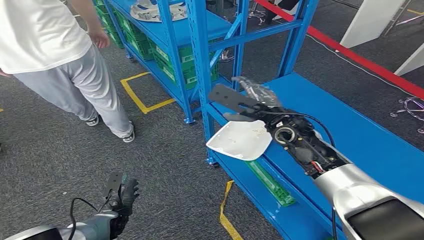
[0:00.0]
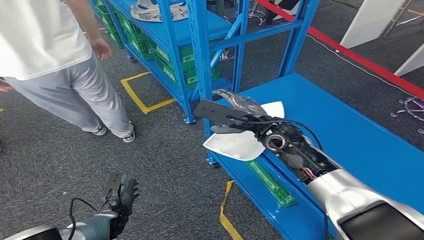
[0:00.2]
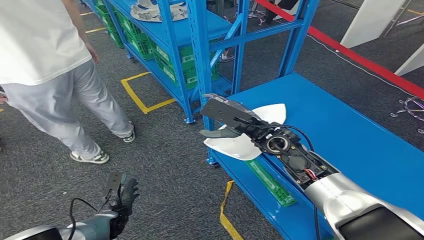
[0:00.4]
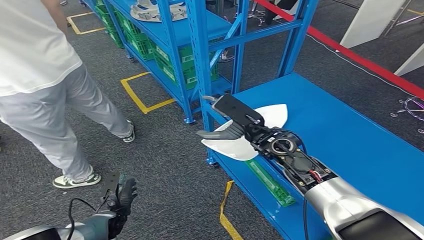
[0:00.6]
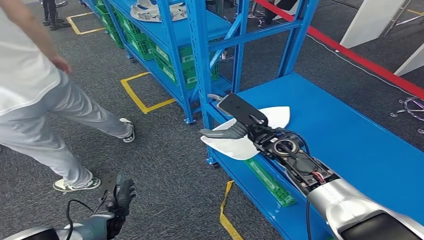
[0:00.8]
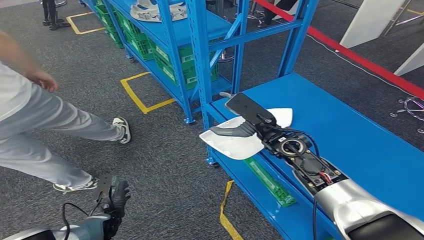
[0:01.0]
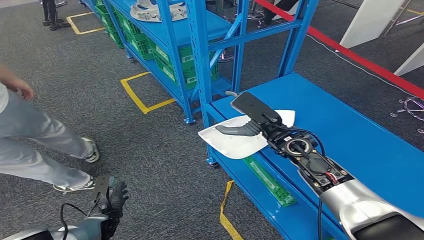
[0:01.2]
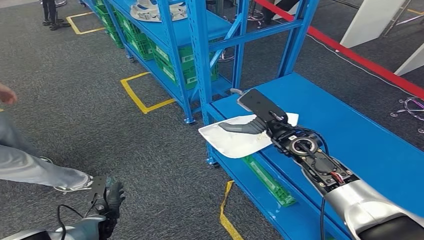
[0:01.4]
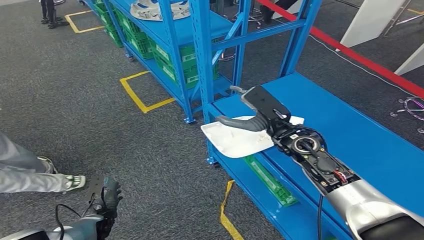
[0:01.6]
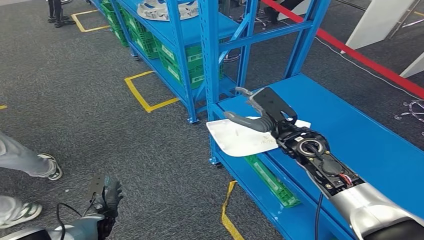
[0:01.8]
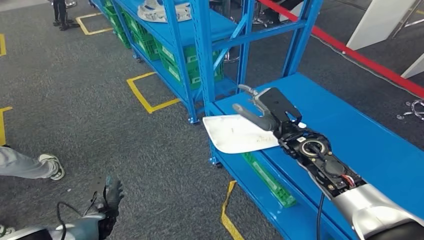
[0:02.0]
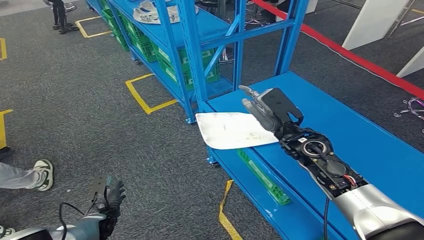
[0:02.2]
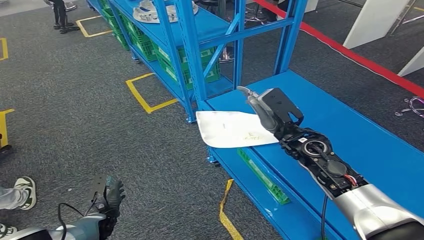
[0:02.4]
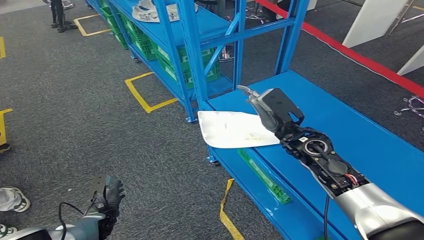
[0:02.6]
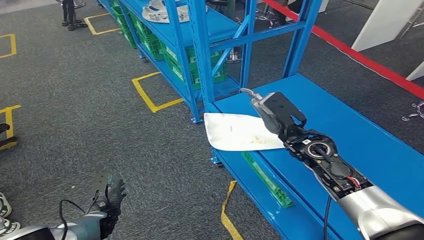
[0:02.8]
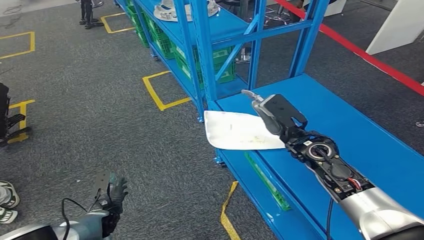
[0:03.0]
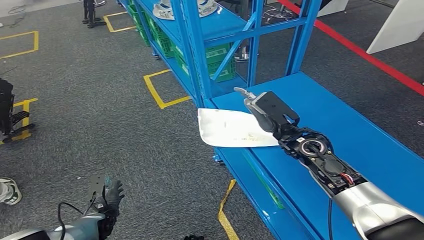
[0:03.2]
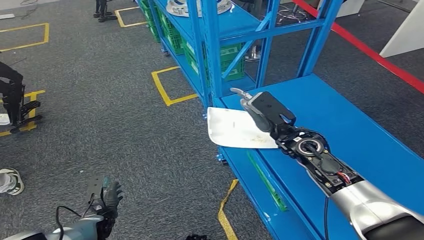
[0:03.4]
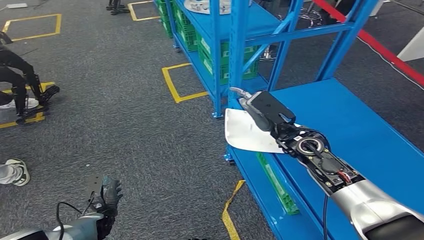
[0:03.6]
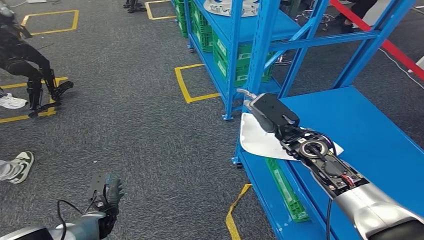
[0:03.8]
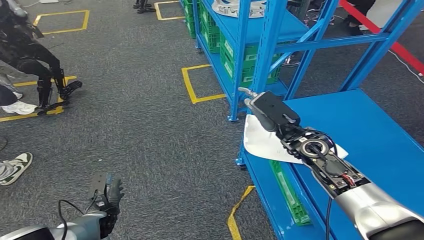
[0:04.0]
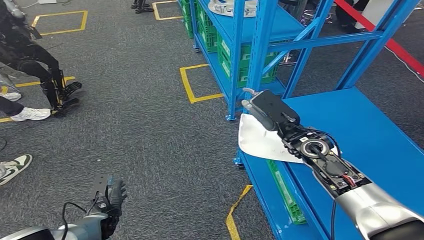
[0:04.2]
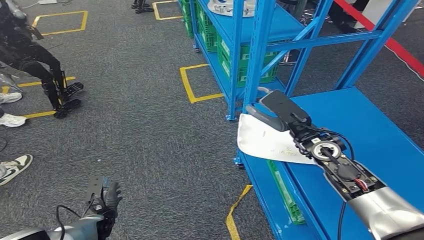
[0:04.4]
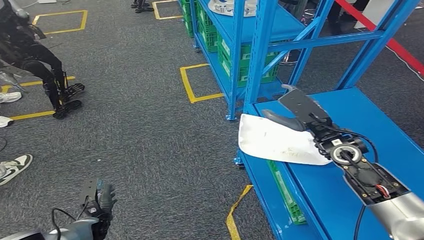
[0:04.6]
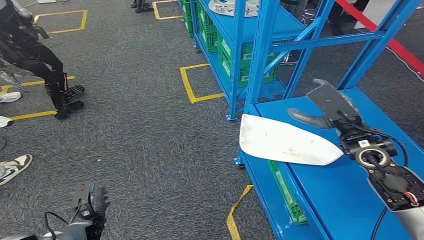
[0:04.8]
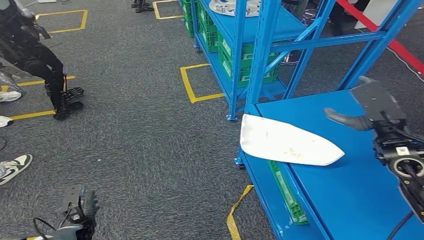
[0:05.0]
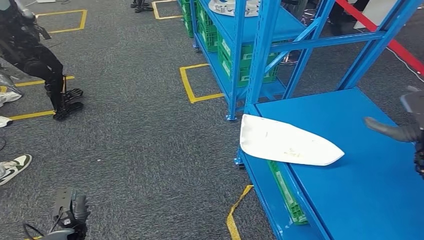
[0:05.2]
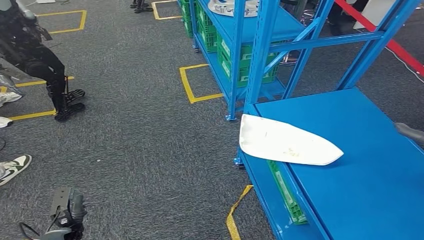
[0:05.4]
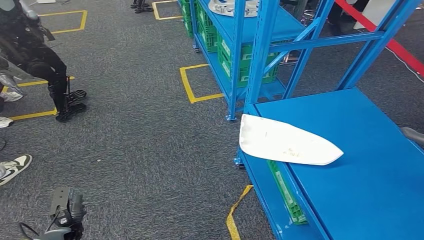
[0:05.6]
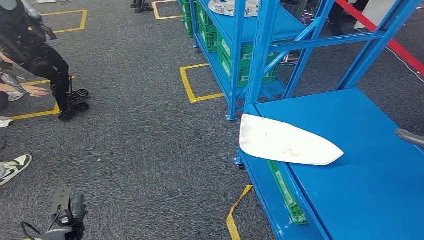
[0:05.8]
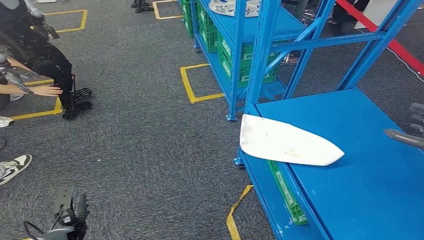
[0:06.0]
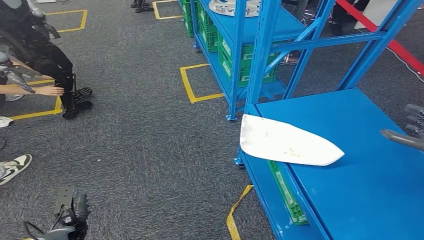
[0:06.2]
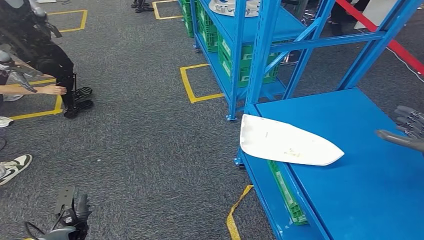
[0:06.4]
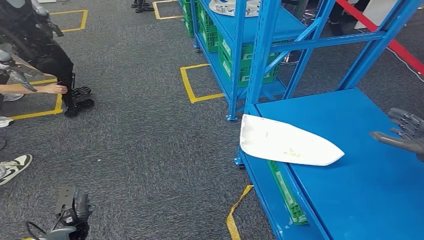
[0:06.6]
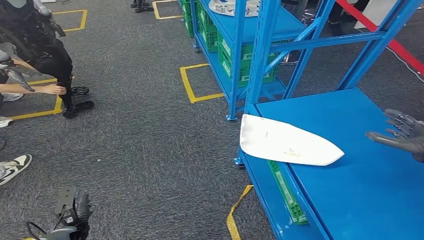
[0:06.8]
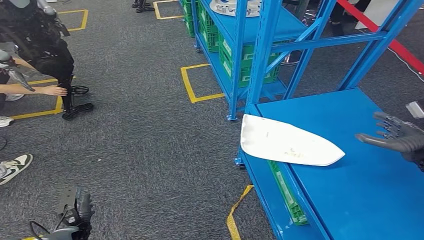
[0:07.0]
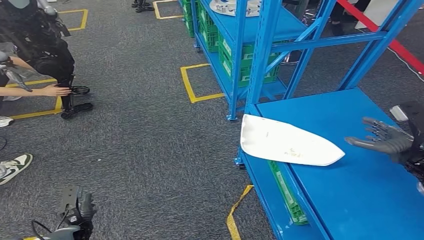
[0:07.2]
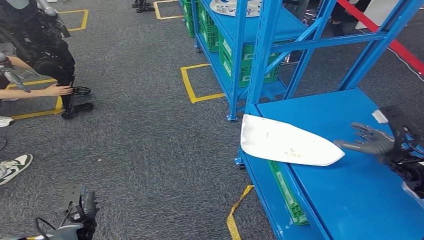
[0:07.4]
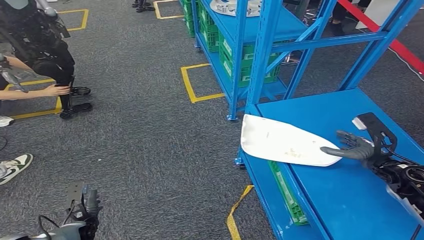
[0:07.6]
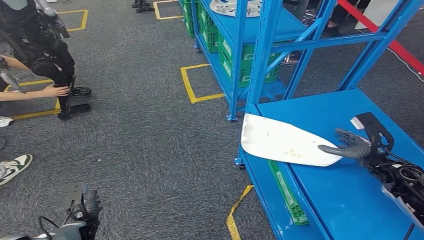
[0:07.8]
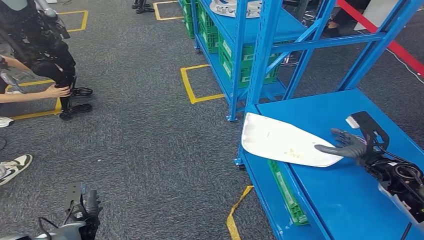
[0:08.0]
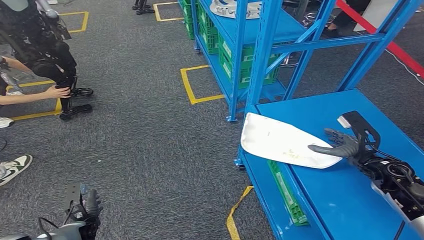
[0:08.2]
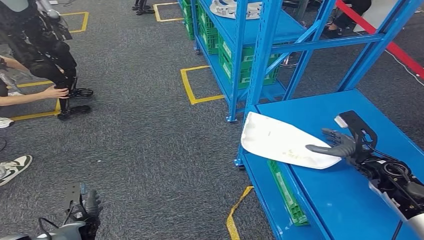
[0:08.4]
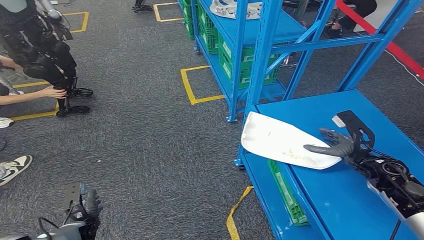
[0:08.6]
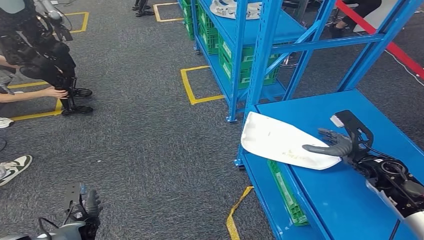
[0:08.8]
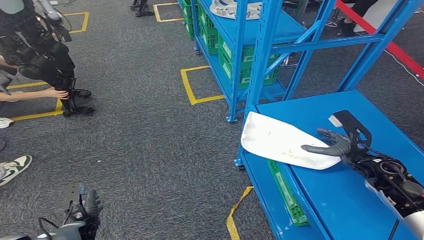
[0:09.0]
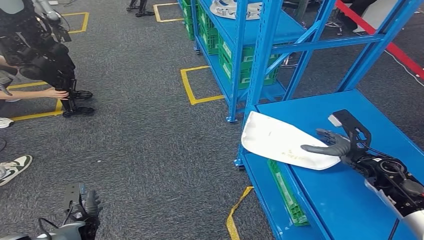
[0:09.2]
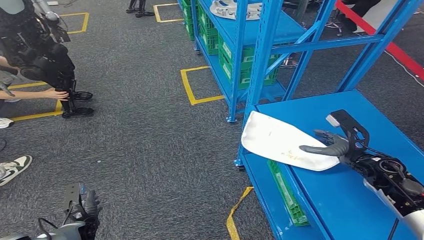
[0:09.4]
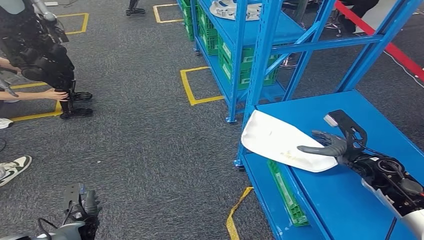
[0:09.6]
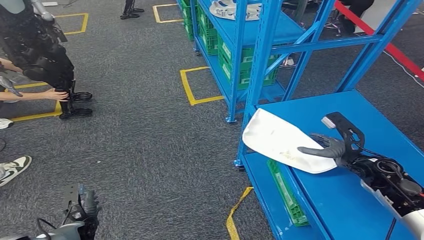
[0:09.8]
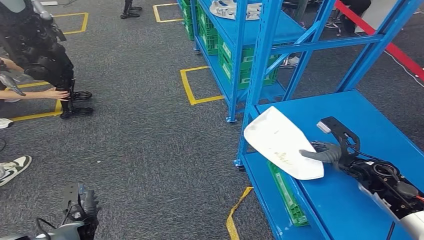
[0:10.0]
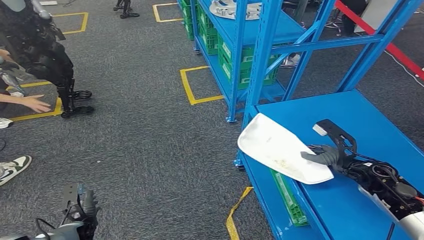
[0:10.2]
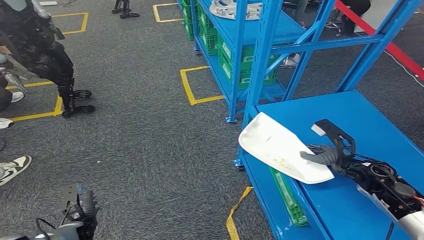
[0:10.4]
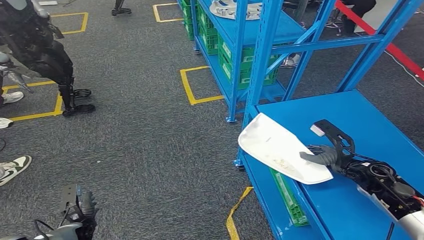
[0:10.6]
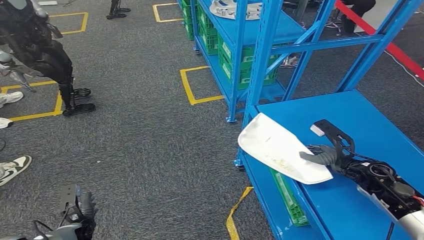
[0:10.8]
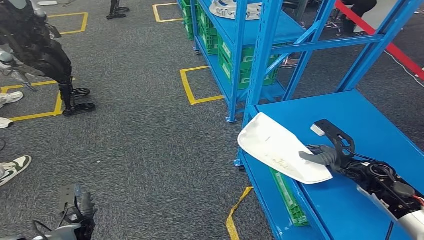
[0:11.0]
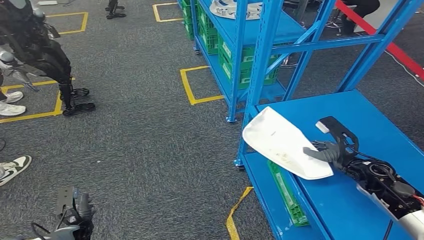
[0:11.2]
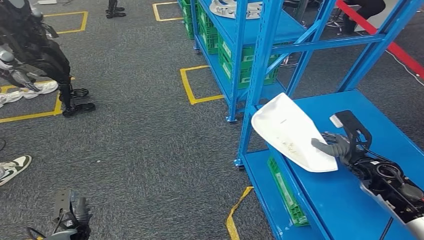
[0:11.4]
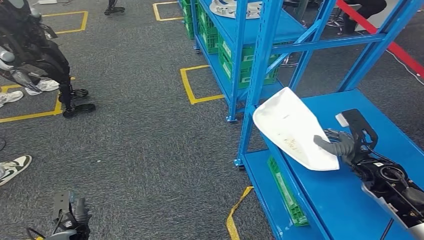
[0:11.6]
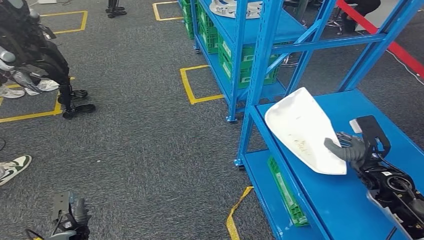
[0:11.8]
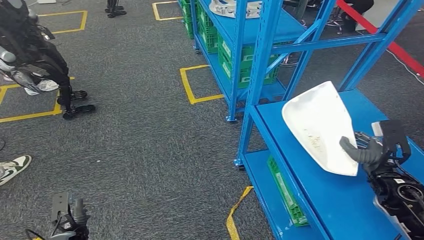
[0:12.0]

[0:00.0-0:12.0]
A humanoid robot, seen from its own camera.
0:04.4 to 0:06.0: The left hand travels to the left and backward by some 10 cm; the right hand shifts approximately 25 cm to the right.
0:06.0 to 0:07.6: The right hand is displaced downward and to the left by roughly 10 cm.
0:07.6 to 0:10.4: There are only small adjustments of the hands.
0:10.4 to 0:12.0: The right hand changes place by some 5 cm.

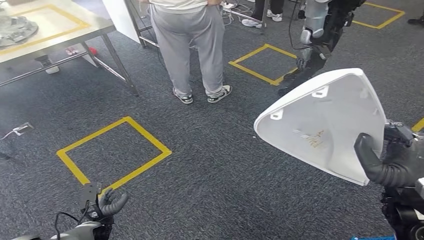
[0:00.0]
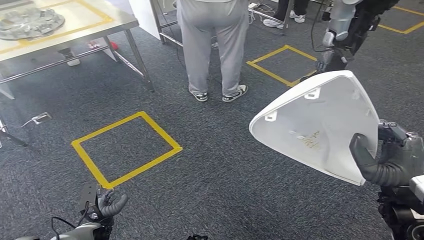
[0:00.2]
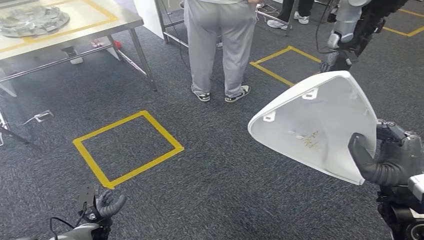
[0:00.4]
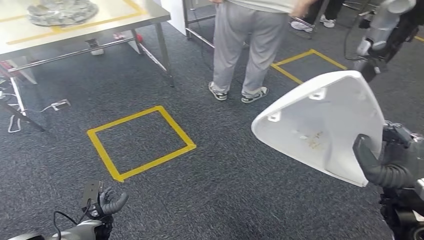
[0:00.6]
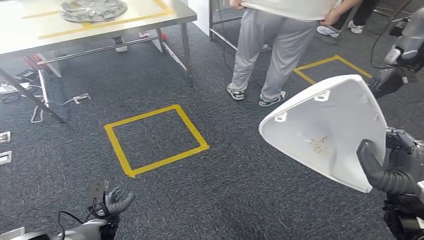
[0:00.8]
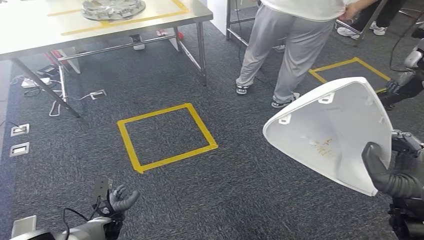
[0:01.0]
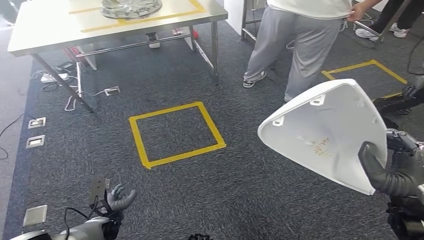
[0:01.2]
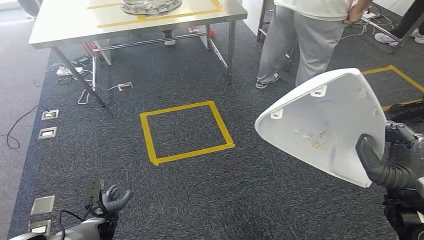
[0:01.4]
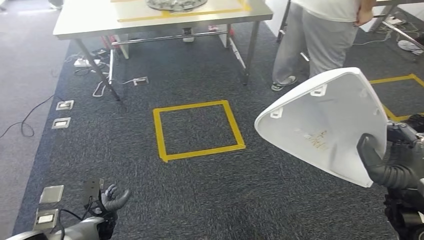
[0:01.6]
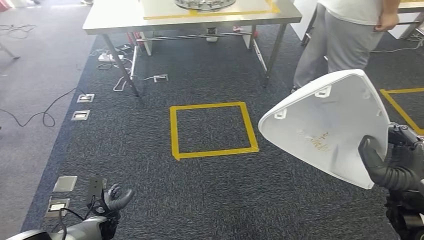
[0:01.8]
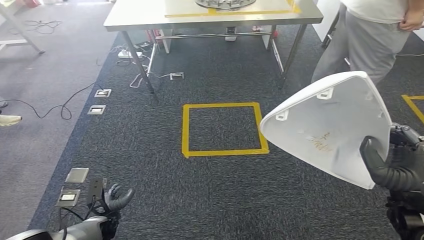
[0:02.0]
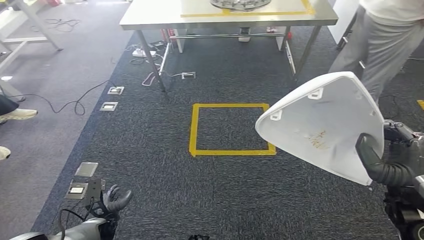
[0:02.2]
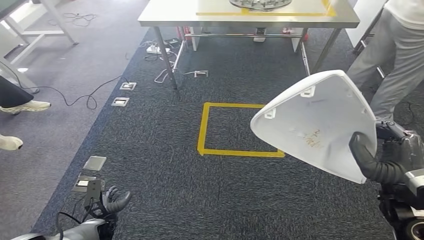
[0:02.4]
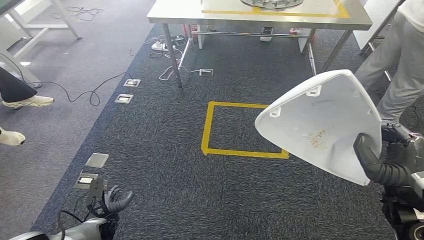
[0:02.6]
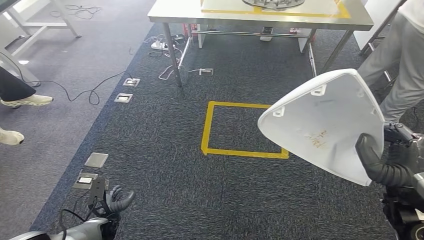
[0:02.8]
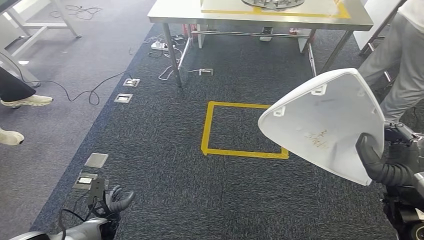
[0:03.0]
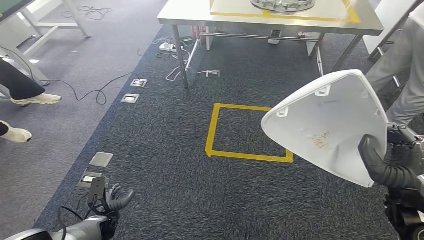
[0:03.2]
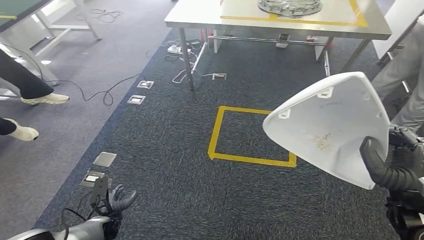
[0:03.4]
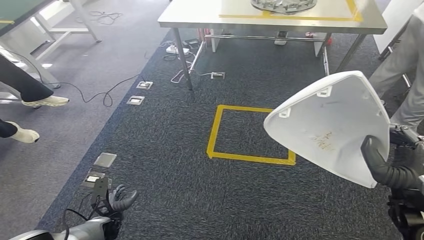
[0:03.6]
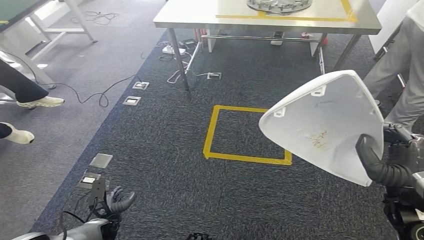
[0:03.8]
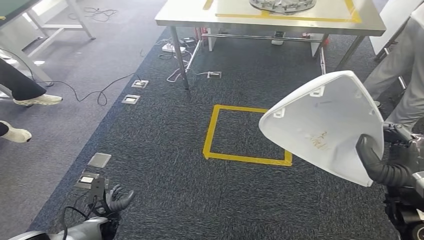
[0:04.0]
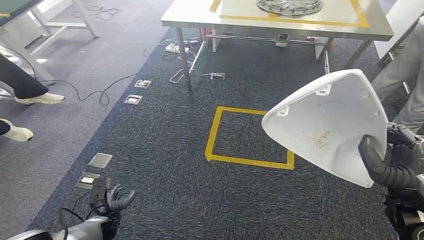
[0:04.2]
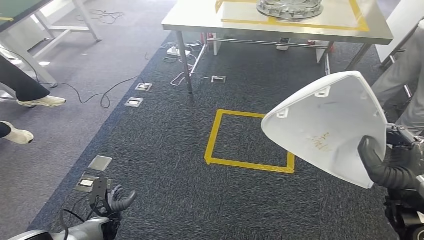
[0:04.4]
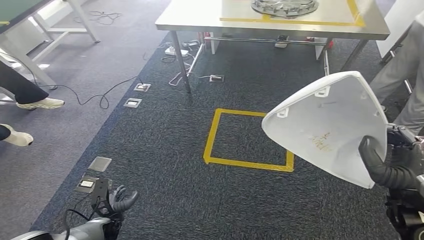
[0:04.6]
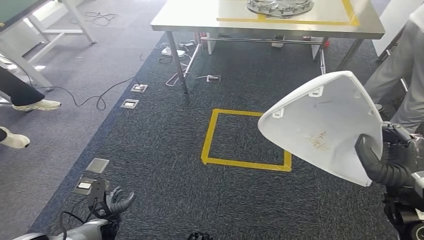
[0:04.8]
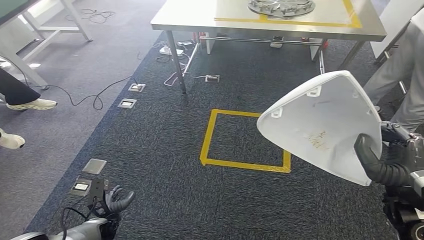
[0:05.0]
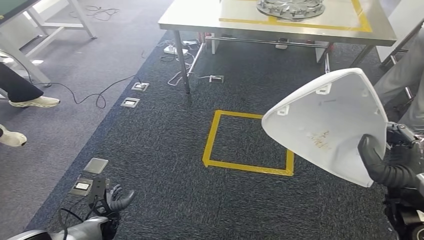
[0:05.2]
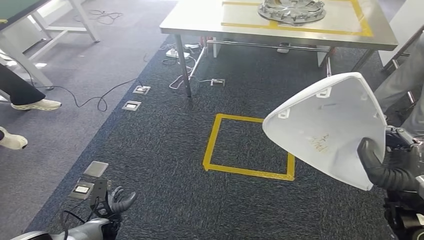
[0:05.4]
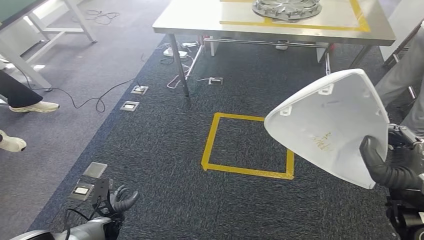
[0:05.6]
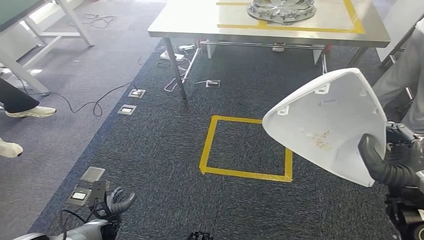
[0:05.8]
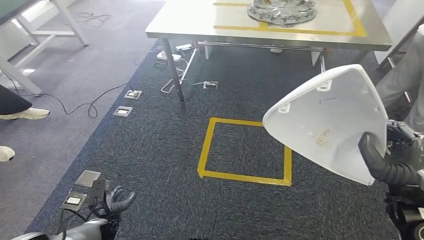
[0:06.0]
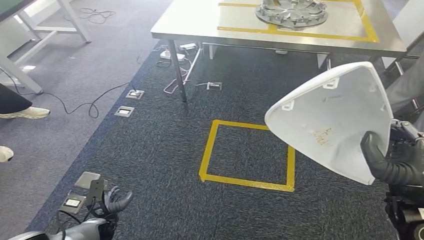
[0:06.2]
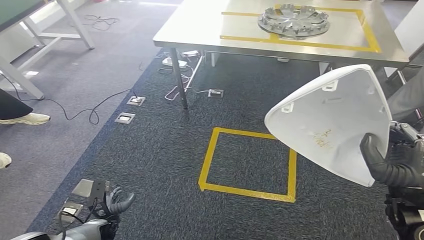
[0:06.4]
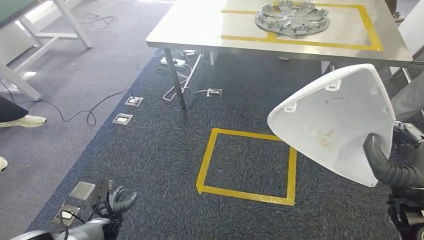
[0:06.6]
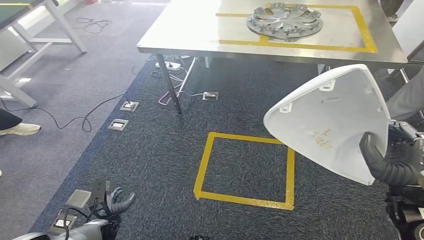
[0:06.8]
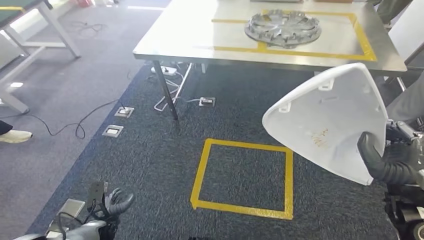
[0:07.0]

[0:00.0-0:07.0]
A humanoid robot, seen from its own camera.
0:04.2 to 0:05.6: Neither hand changes place.
